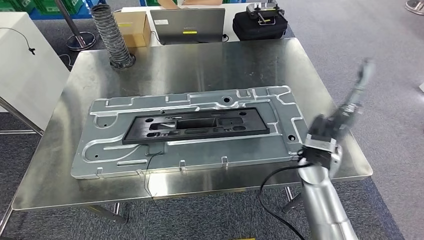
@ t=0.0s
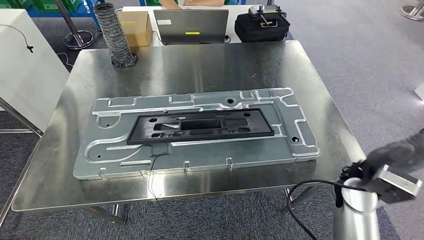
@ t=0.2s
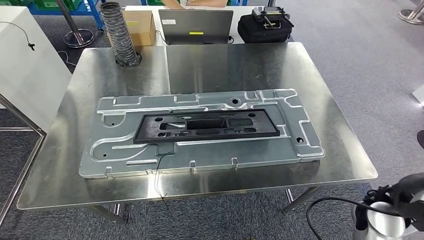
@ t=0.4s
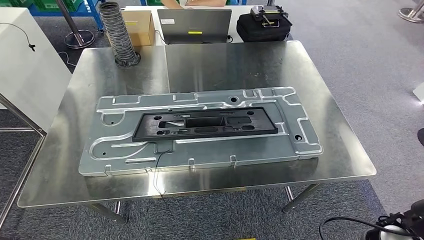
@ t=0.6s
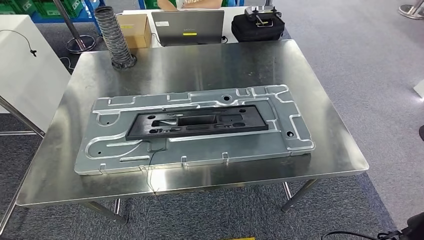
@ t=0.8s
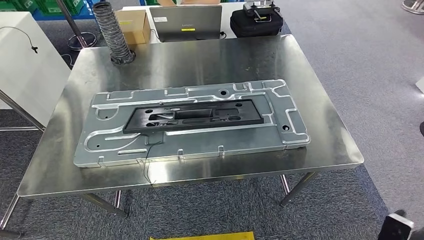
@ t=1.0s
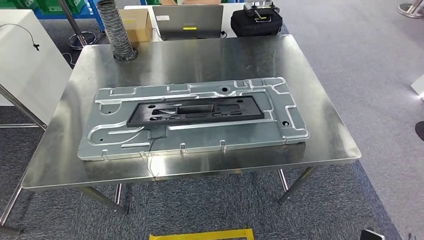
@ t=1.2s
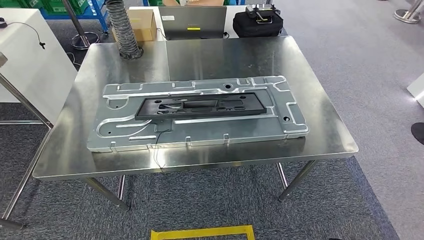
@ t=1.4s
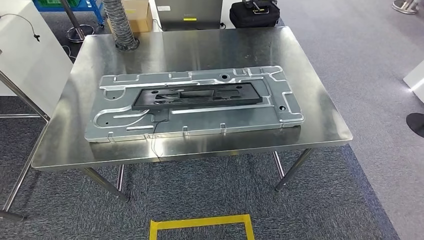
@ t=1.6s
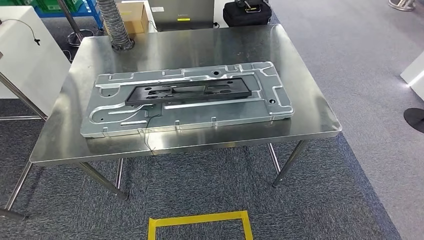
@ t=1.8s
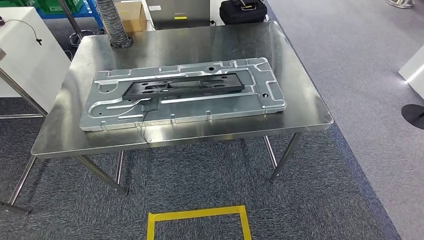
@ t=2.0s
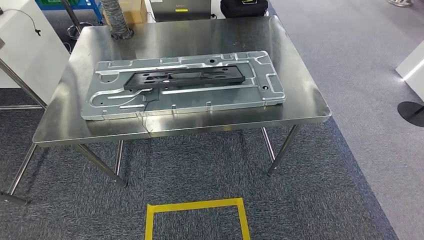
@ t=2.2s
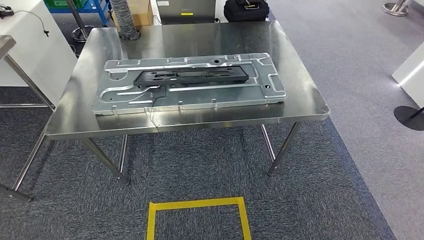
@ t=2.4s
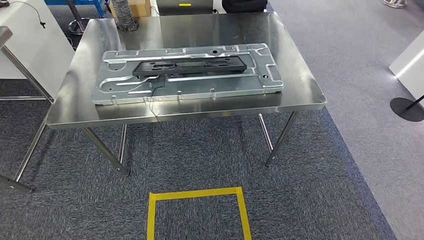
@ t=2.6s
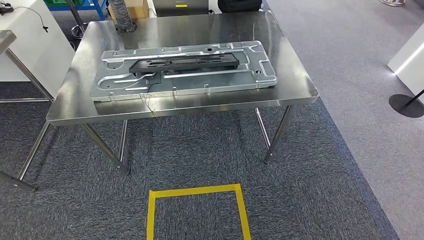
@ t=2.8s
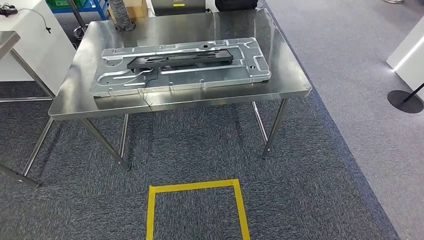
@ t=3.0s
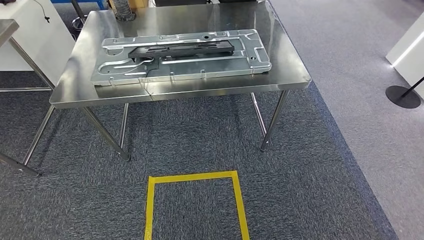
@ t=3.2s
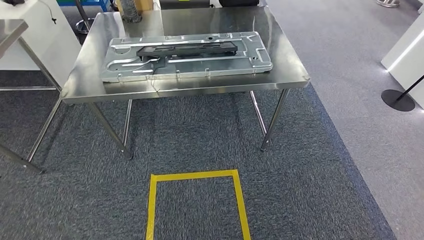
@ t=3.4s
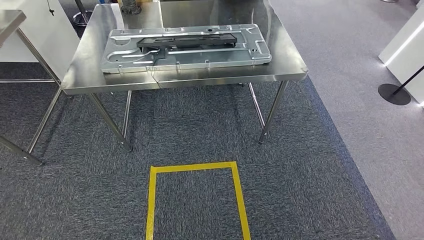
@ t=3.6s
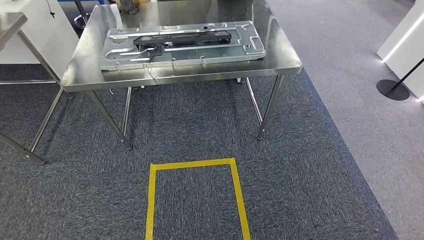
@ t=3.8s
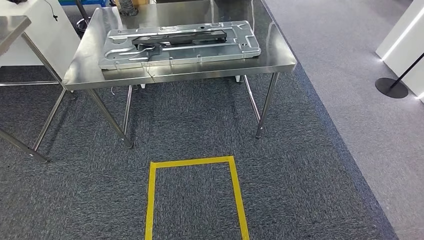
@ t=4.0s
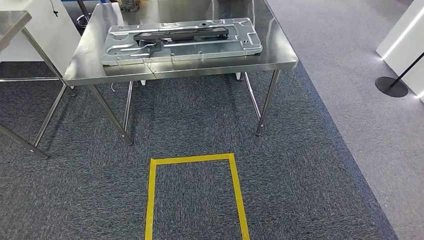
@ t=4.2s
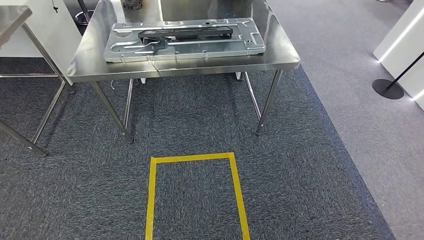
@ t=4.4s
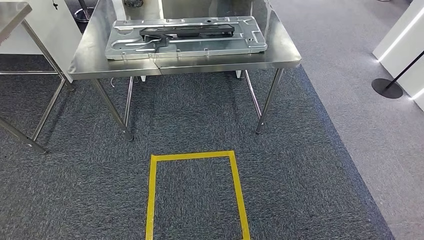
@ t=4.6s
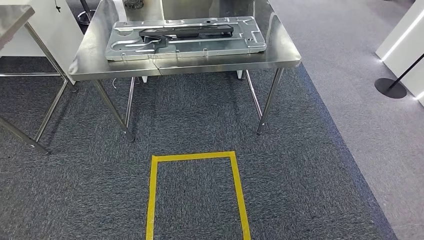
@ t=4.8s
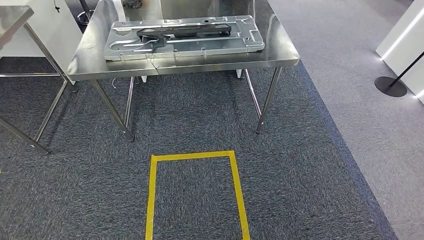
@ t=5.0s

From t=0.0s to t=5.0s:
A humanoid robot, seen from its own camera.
Step, from t=1.0s to t=5.0s: Move to the initial position of the shelf.

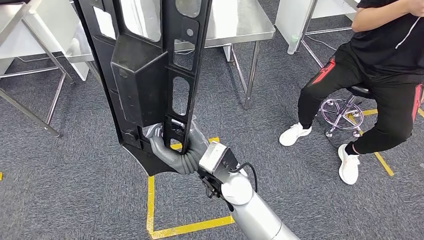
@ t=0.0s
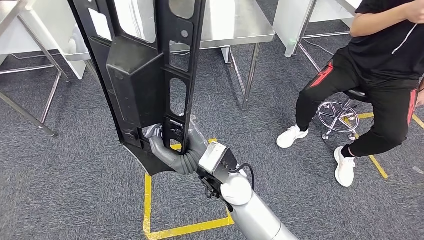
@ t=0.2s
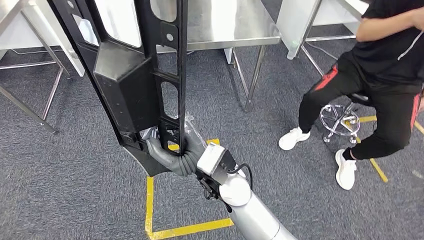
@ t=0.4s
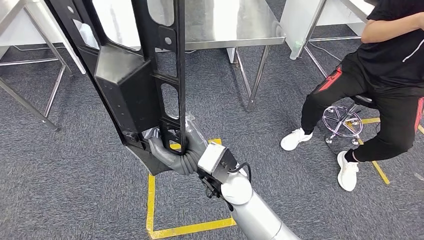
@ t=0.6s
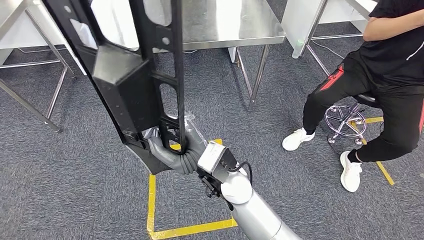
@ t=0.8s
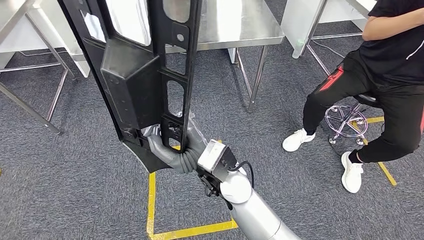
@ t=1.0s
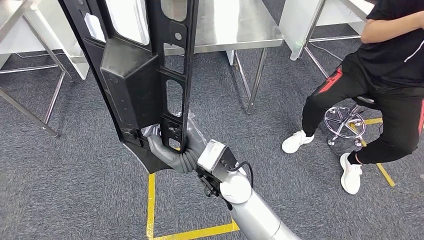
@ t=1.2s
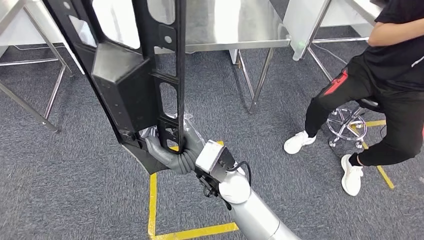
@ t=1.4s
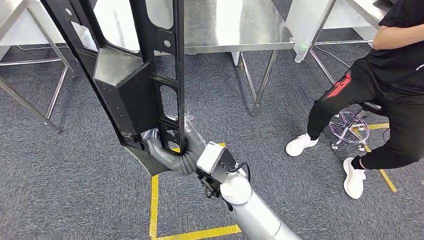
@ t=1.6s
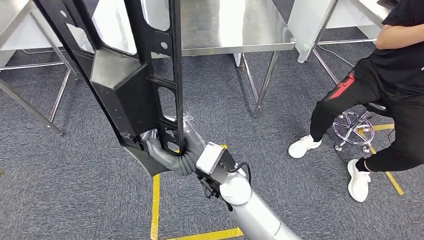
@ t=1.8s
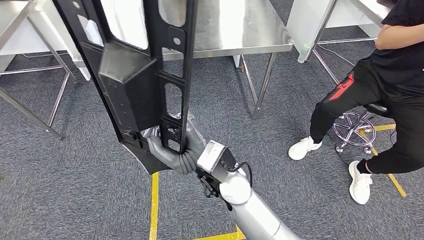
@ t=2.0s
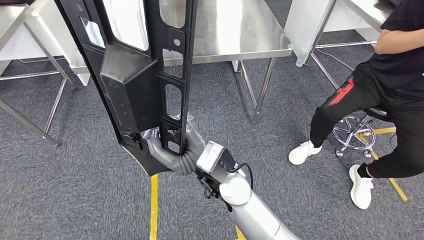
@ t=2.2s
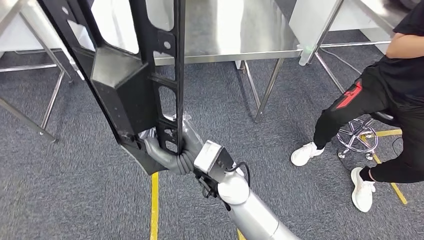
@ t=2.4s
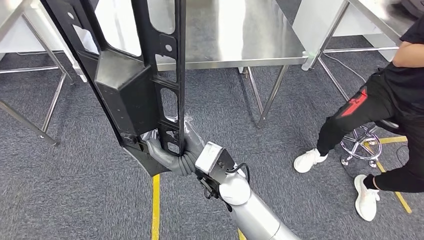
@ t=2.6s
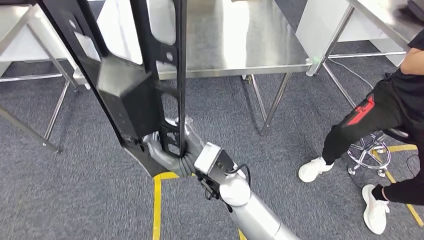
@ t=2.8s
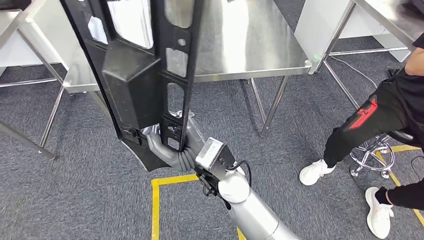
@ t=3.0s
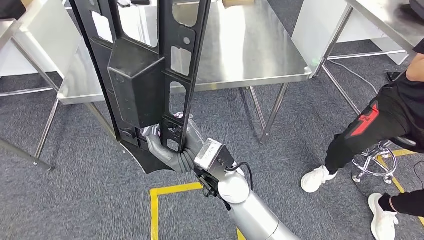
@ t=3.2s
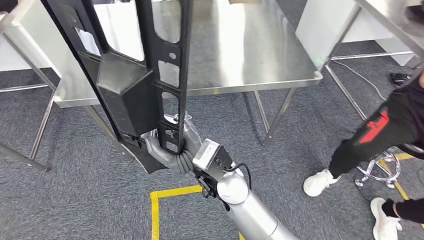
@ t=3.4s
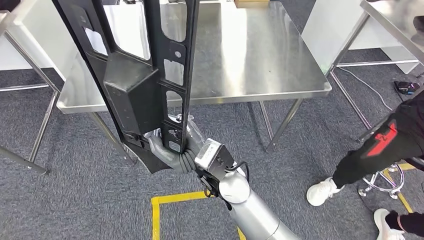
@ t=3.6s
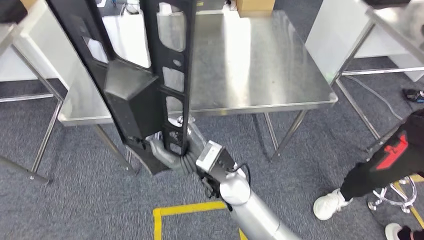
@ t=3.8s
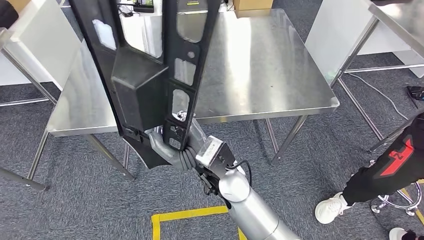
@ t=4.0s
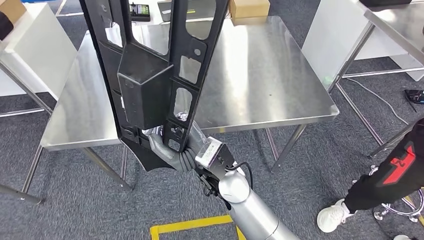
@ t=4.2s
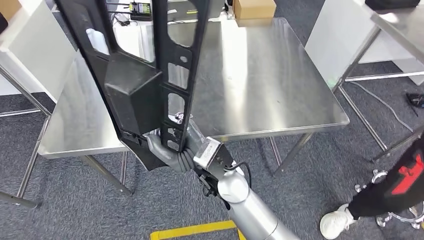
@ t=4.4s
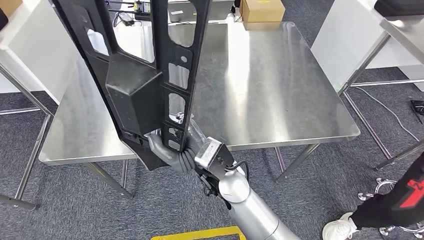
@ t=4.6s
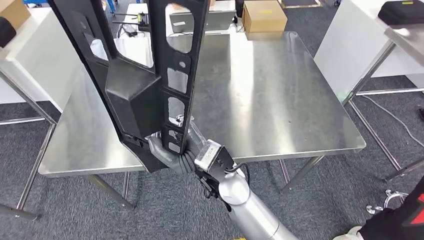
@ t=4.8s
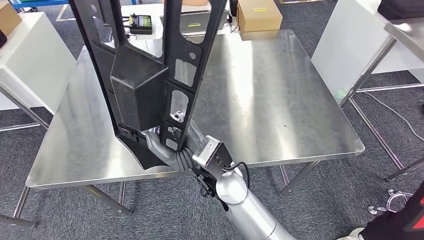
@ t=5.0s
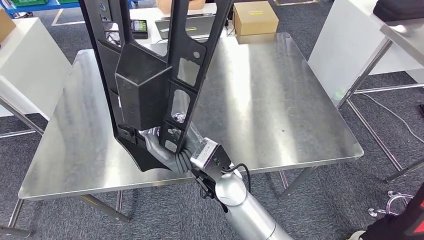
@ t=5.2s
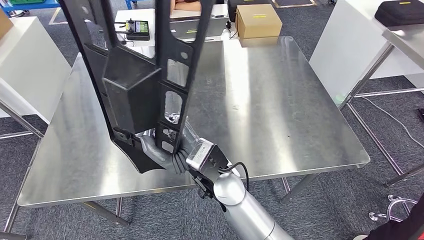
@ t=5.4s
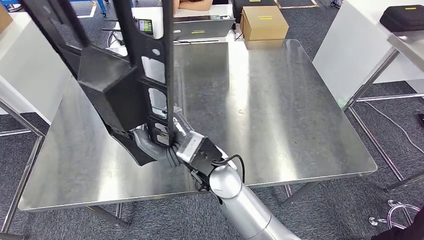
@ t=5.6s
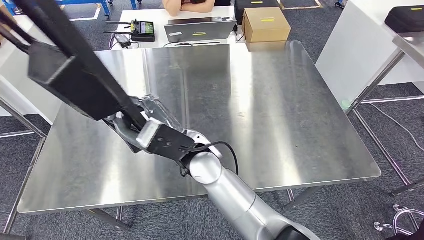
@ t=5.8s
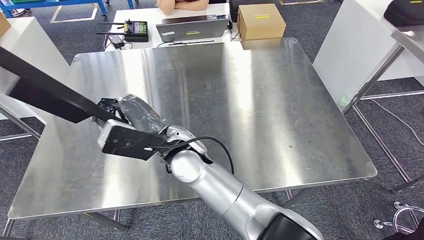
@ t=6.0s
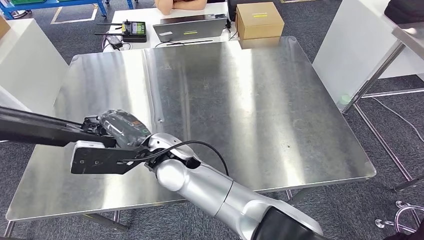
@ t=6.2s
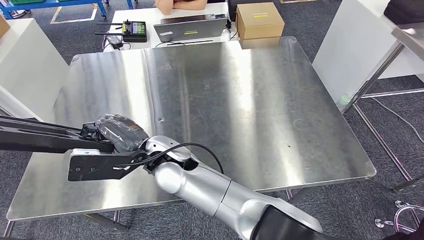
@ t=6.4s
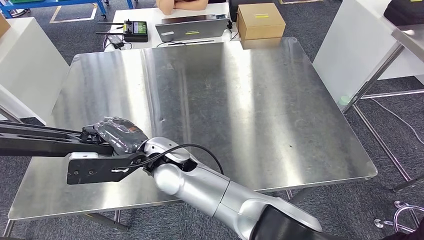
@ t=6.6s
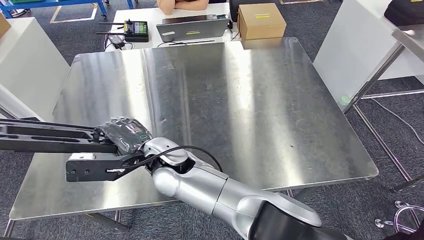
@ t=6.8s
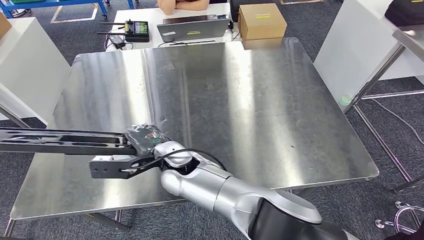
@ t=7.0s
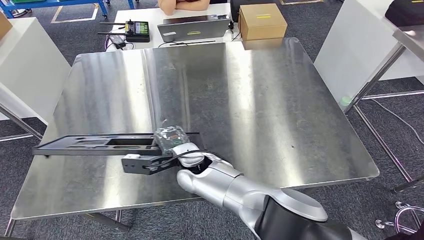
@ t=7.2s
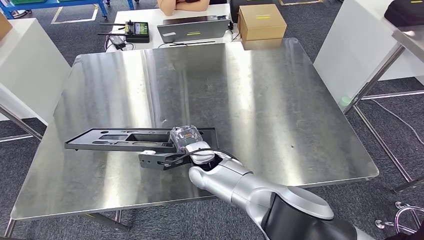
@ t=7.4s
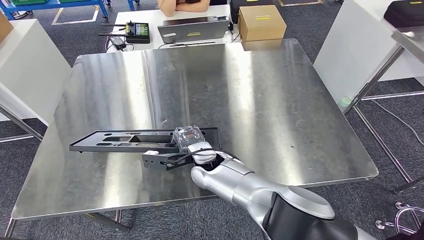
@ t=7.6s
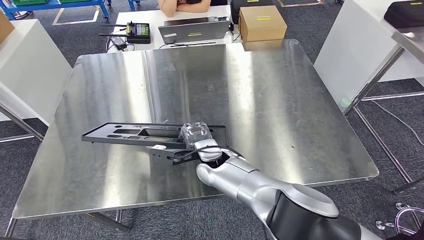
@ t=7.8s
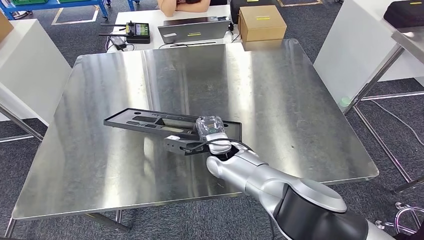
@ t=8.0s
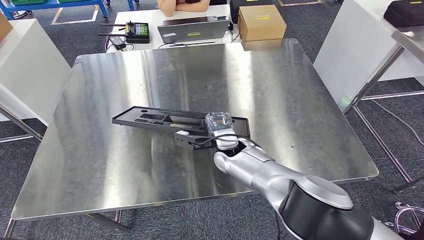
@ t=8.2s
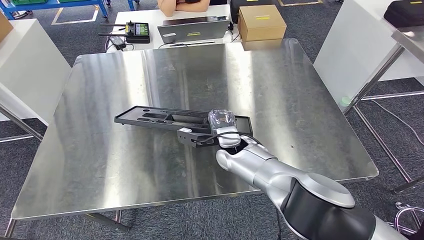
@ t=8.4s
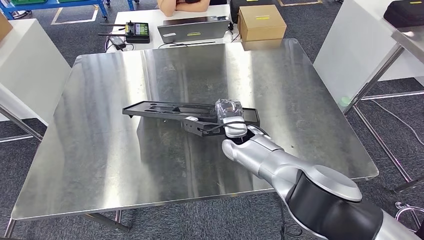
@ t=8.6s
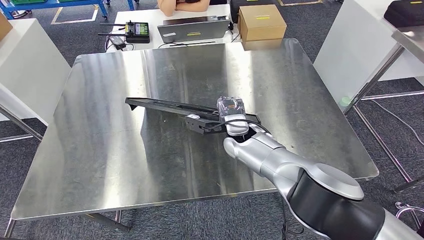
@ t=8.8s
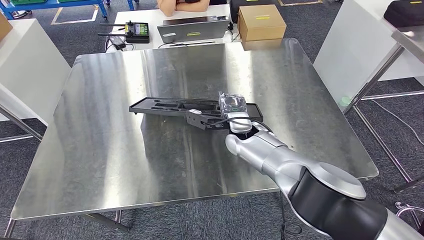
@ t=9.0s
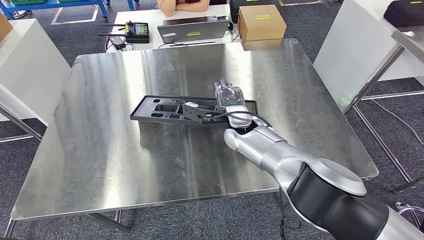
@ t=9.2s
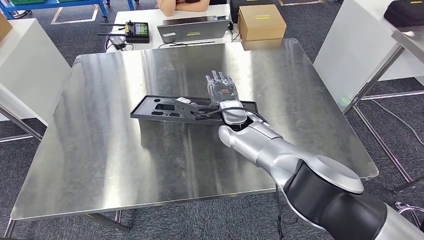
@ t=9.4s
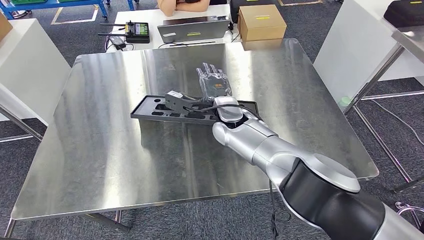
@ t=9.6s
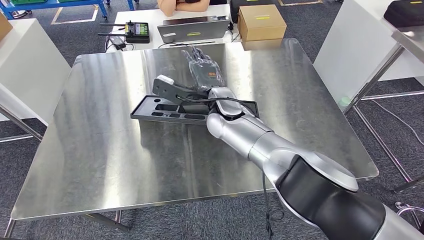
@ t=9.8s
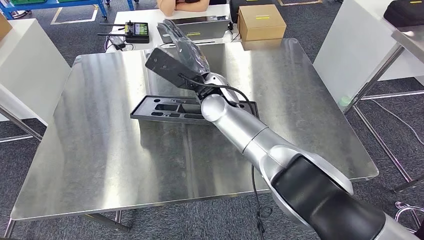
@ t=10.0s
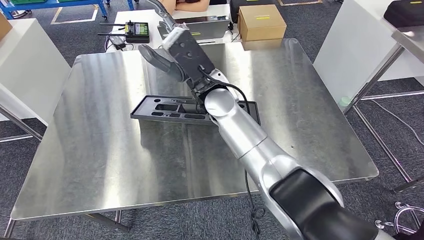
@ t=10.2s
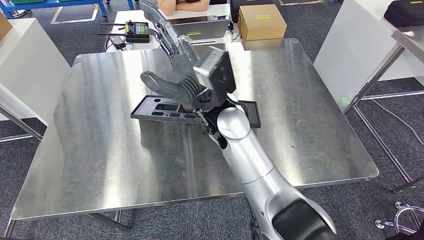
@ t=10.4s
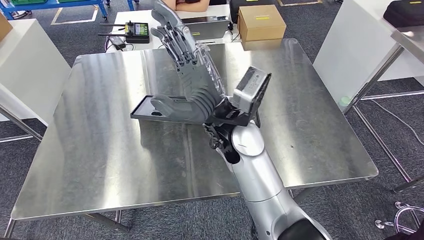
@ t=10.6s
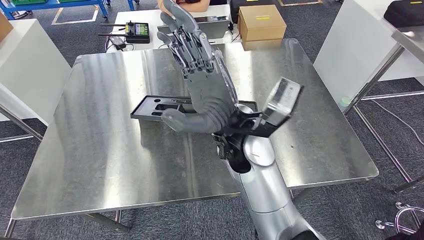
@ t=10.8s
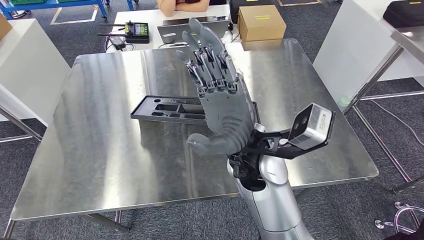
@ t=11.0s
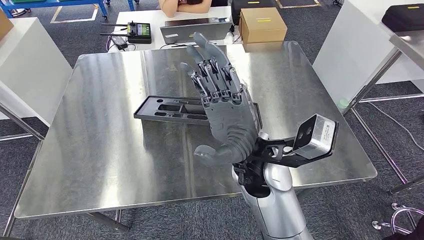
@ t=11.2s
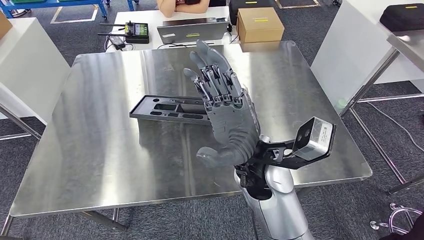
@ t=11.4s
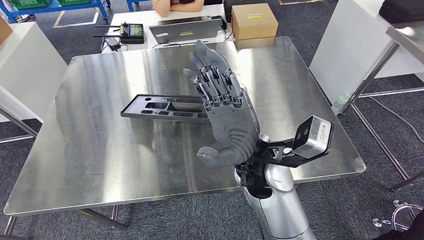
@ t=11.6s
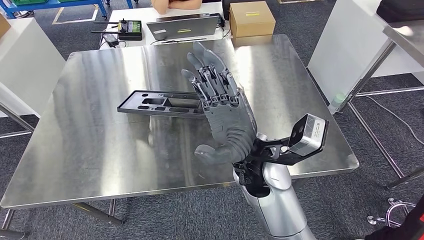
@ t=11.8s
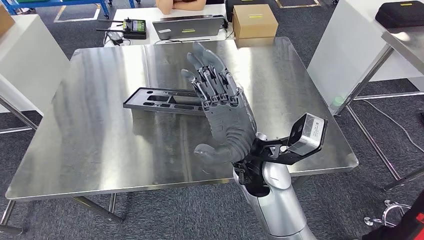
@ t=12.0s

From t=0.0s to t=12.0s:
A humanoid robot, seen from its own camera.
Step, from t=0.0s to t=4.4s: Move the large material to the workbench.
From t=7.6s to t=9.0s: The right hand moves to the right and forward, roughly 10 cm.
From t=9.0s to t=10.4s: The right hand heads to the left and upward, covering some 20 cm.
